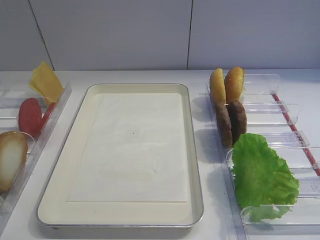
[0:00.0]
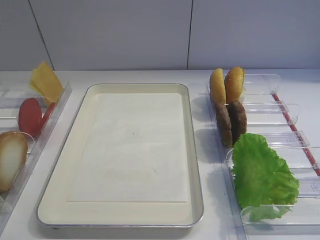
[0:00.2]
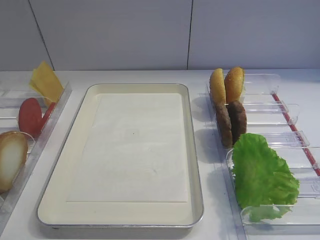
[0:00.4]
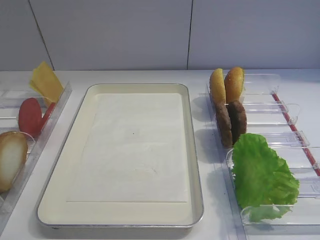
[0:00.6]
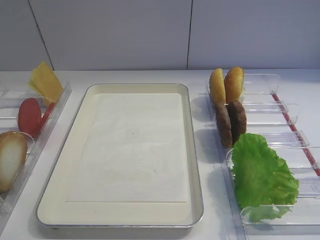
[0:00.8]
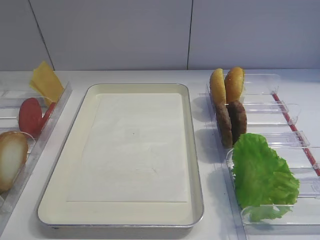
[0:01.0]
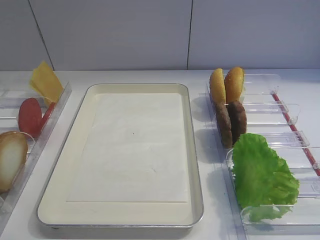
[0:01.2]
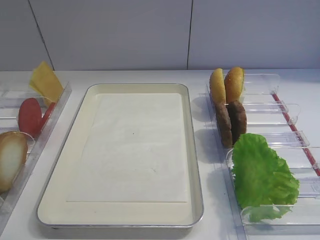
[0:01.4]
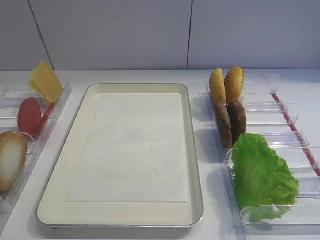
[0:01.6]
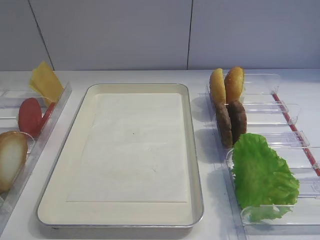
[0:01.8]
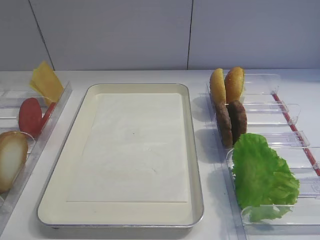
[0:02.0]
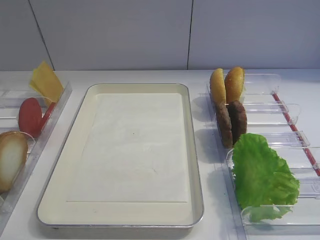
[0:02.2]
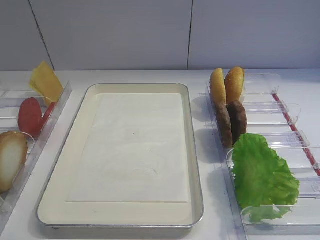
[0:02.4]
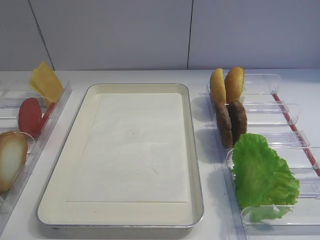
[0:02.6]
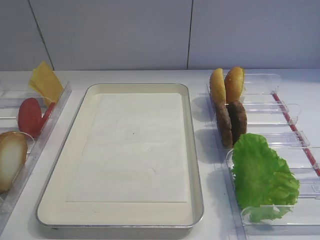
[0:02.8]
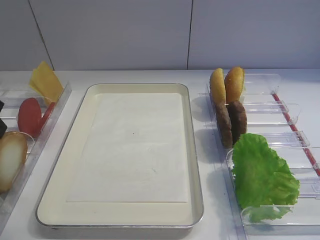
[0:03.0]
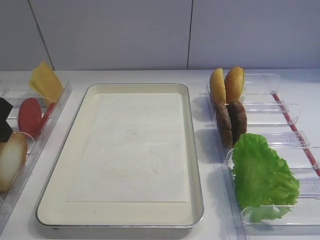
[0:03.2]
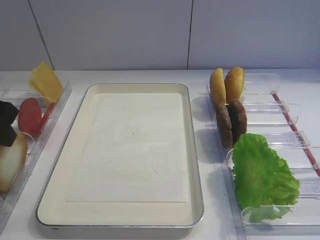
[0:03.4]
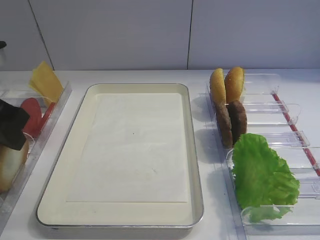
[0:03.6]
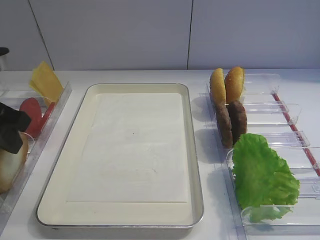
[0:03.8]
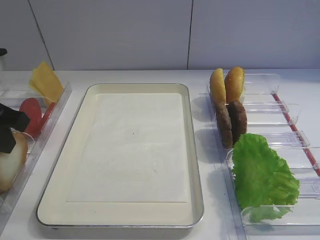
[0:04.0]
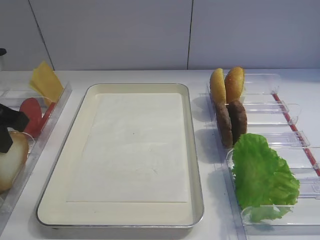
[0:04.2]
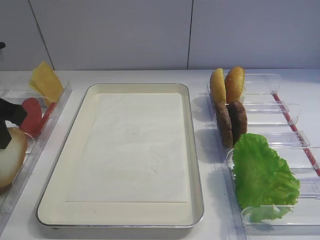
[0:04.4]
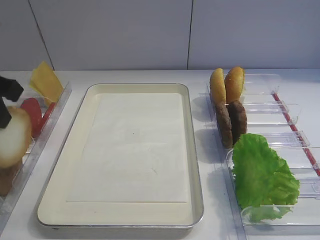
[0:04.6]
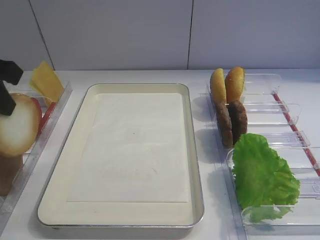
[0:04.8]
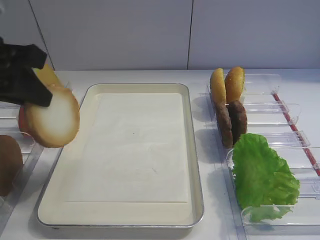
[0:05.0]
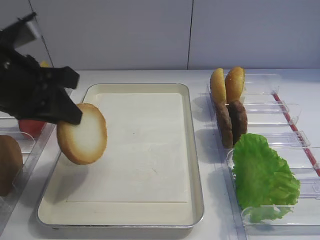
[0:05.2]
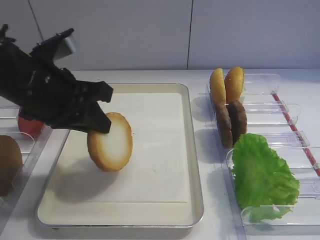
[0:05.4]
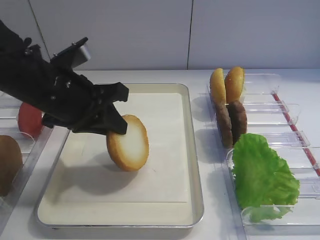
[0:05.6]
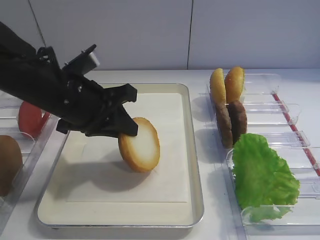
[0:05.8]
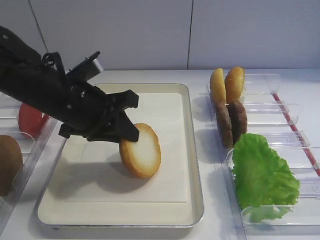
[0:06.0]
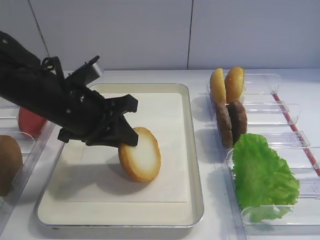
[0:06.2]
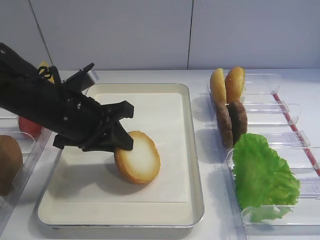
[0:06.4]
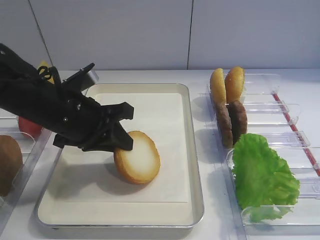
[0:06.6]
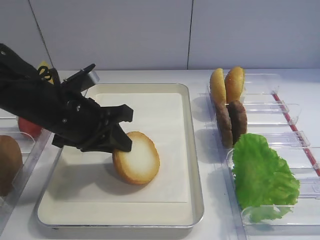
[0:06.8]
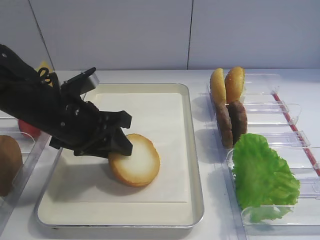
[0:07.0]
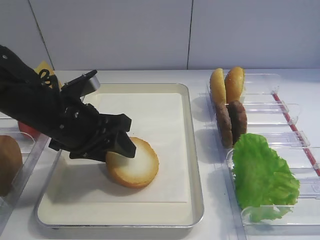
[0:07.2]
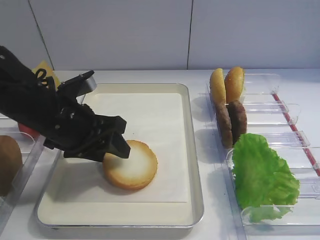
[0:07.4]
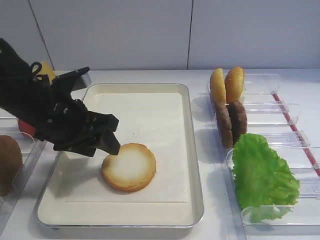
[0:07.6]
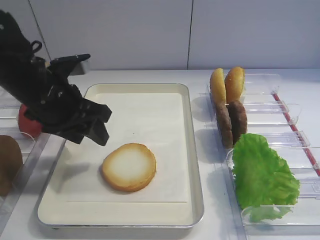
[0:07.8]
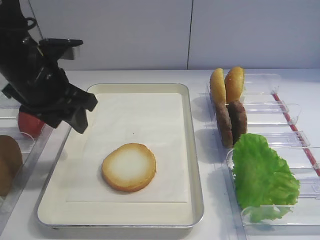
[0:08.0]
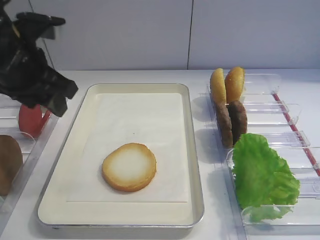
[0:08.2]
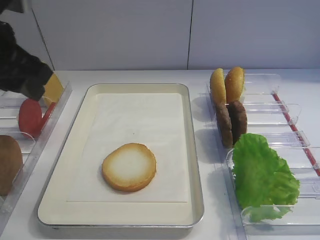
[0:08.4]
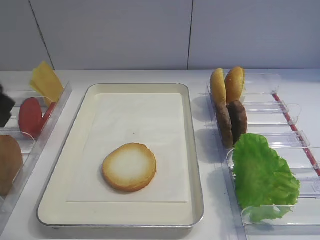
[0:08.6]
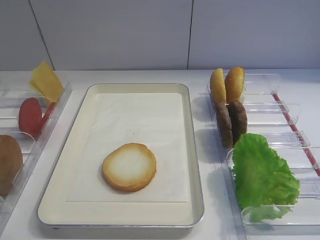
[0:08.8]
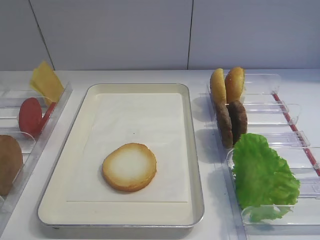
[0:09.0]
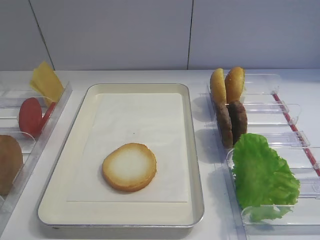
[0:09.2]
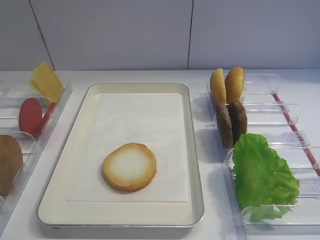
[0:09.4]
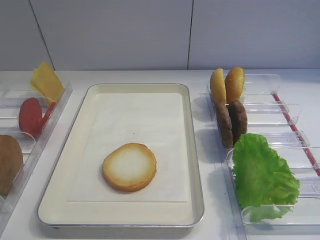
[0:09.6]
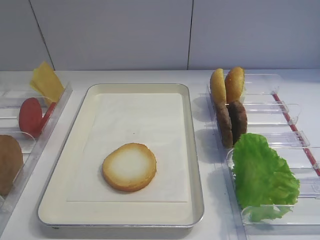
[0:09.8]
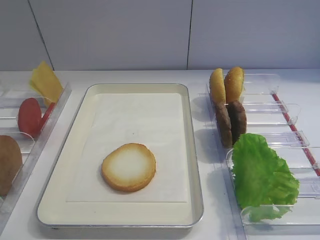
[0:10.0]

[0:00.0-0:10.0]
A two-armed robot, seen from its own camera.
Step, 0:00.0 to 0:04.8: Pick up the bread slice with the left gripper.
Step, 0:05.0 to 0:08.0: Place the bread slice on the tray with the left gripper.
0:02.8 to 0:04.2: The left gripper closes its fingers.
0:04.2 to 0:05.8: The left gripper moves to the right and downward, approximately 15 cm.
0:05.8 to 0:07.2: The left gripper opens.
0:07.2 to 0:08.6: The left gripper travels backward, upward and to the left by roughly 25 cm.

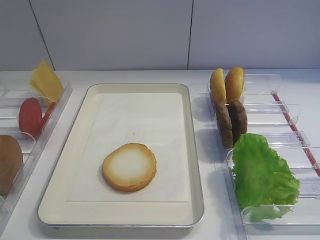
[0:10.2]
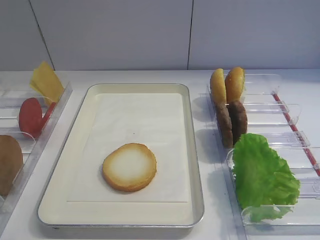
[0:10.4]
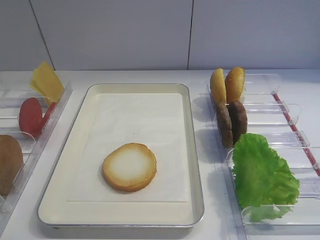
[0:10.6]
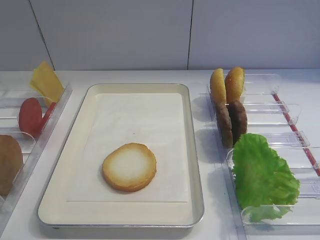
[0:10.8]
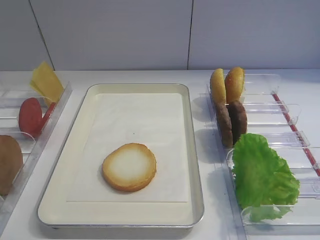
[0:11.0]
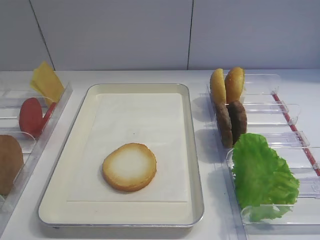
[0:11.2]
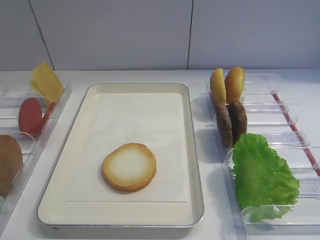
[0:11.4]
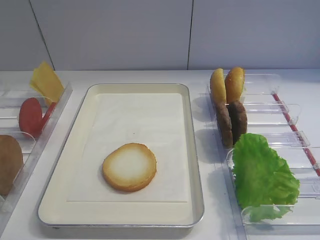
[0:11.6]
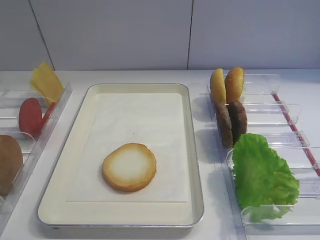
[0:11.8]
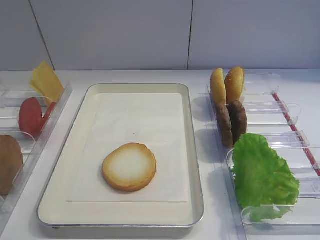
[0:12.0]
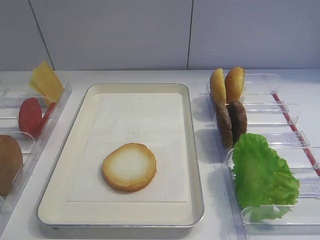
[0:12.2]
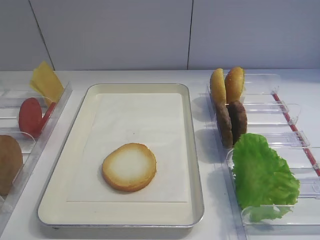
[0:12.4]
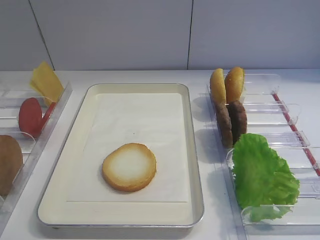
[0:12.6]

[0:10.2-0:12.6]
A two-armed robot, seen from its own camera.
0:11.4 to 0:12.6: The two grippers keep their place.

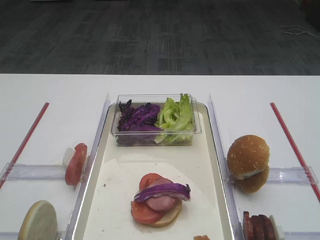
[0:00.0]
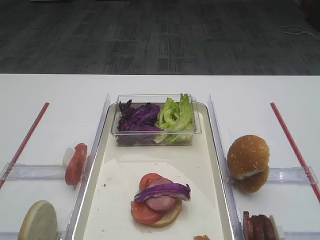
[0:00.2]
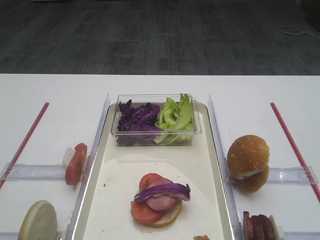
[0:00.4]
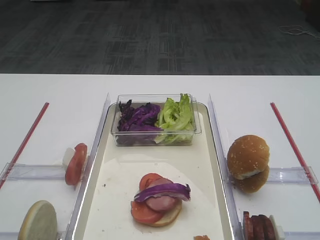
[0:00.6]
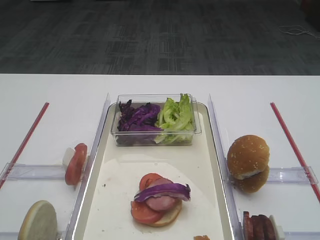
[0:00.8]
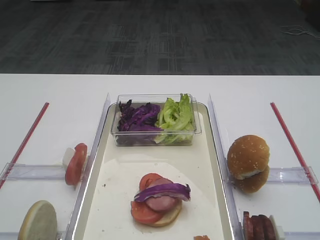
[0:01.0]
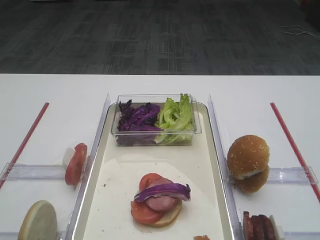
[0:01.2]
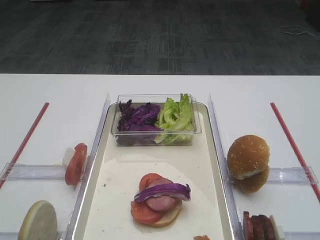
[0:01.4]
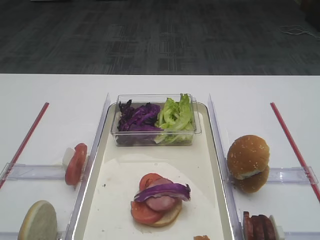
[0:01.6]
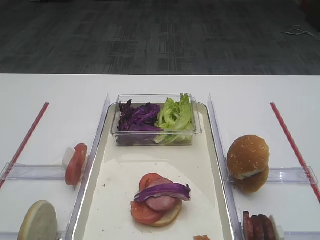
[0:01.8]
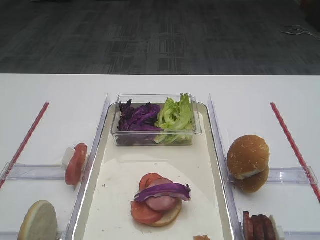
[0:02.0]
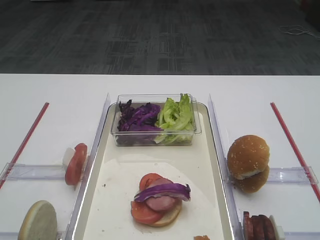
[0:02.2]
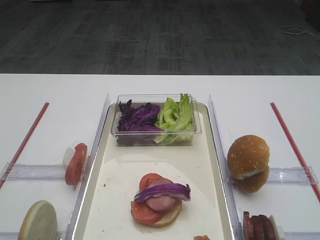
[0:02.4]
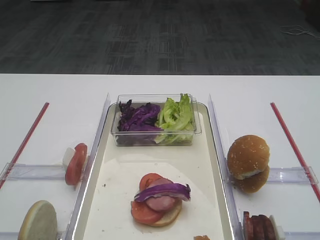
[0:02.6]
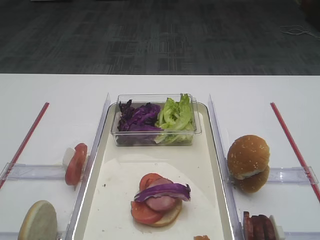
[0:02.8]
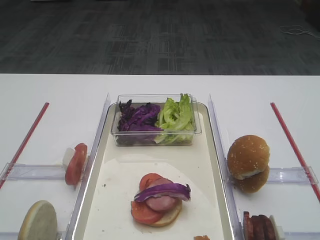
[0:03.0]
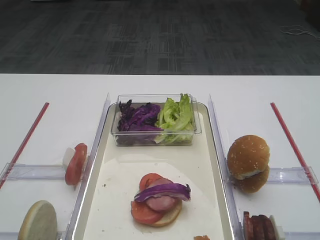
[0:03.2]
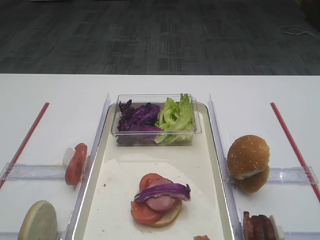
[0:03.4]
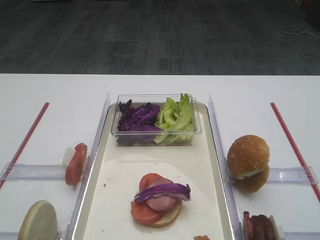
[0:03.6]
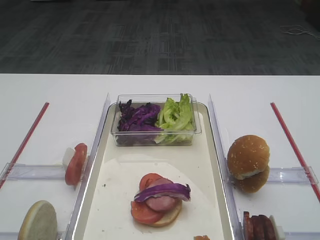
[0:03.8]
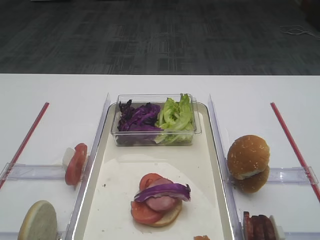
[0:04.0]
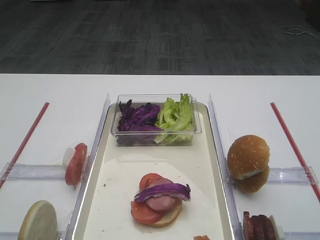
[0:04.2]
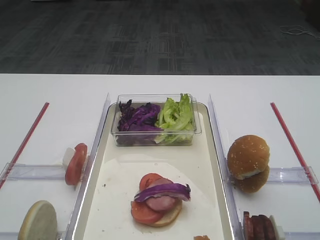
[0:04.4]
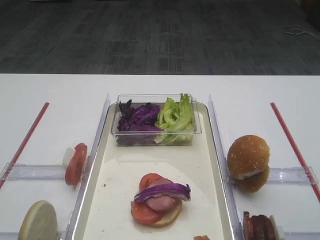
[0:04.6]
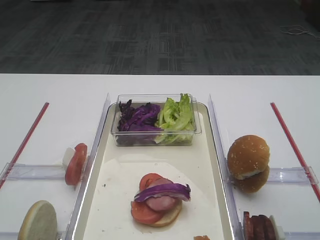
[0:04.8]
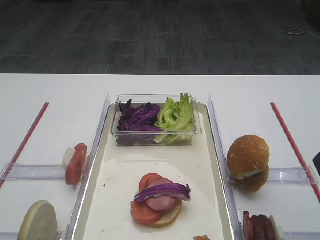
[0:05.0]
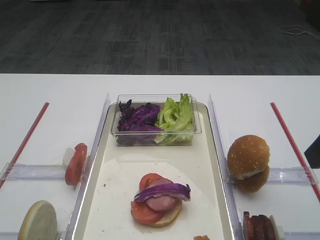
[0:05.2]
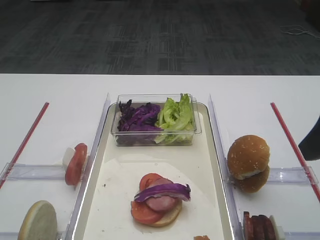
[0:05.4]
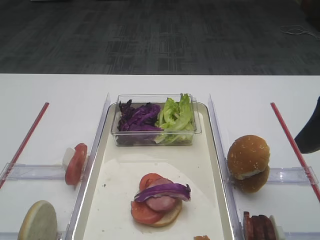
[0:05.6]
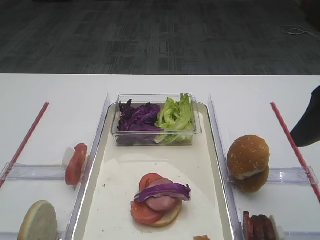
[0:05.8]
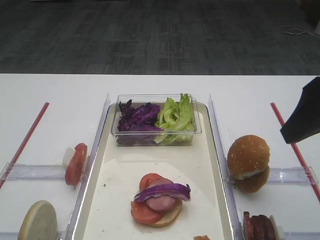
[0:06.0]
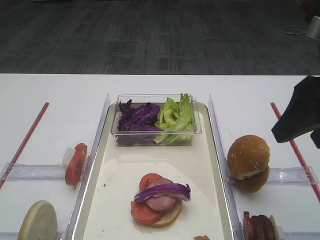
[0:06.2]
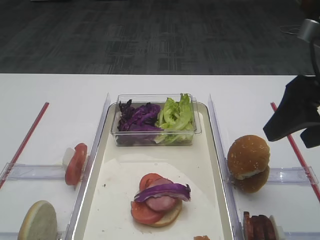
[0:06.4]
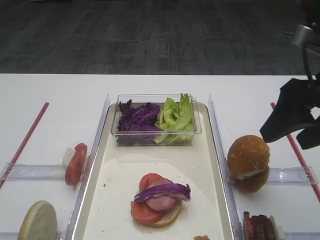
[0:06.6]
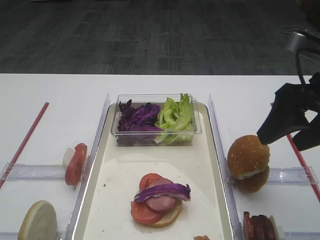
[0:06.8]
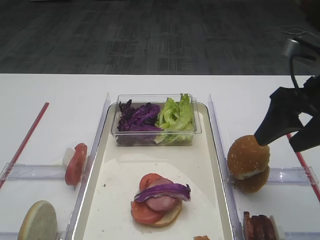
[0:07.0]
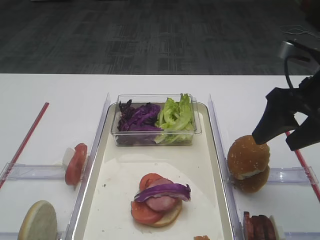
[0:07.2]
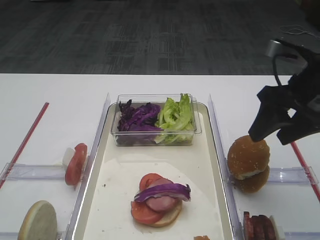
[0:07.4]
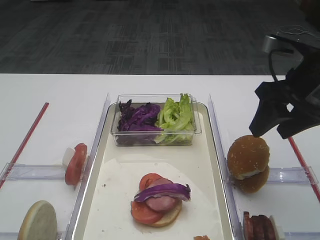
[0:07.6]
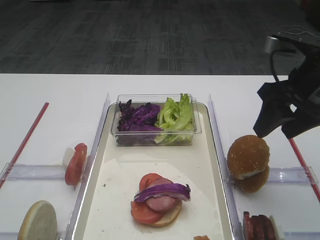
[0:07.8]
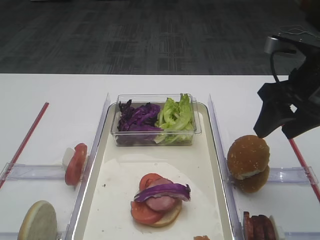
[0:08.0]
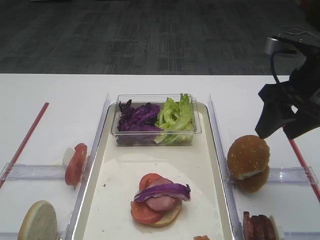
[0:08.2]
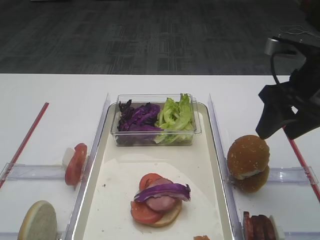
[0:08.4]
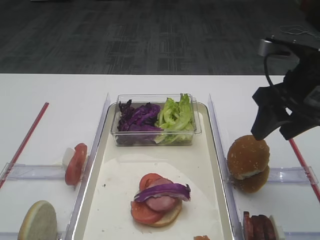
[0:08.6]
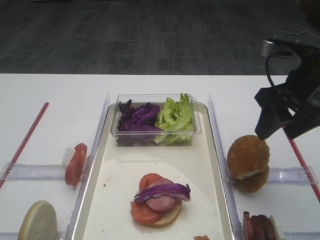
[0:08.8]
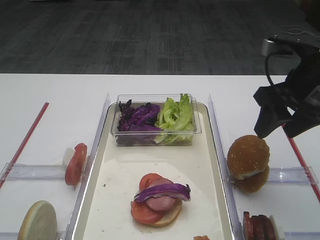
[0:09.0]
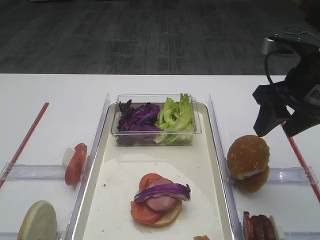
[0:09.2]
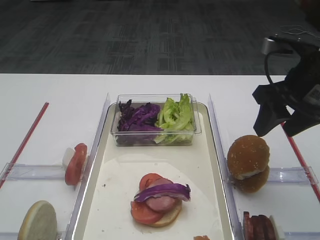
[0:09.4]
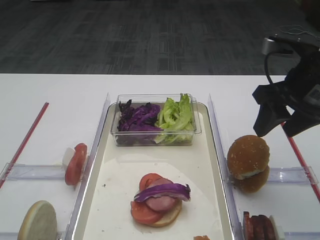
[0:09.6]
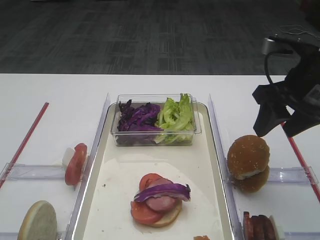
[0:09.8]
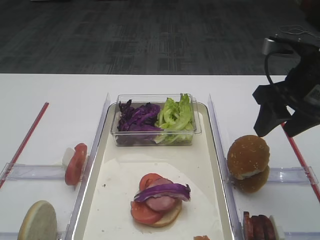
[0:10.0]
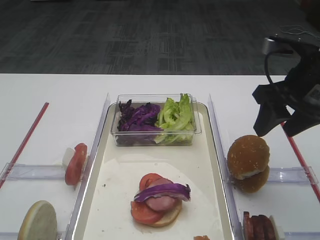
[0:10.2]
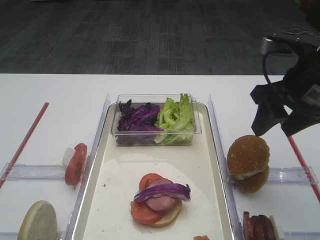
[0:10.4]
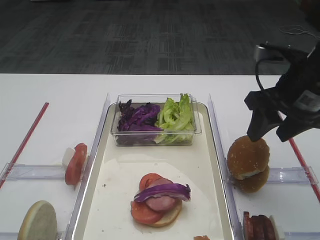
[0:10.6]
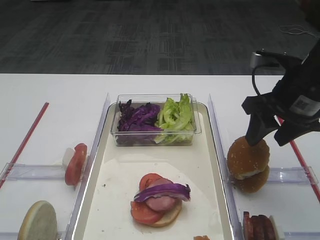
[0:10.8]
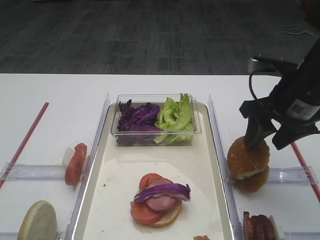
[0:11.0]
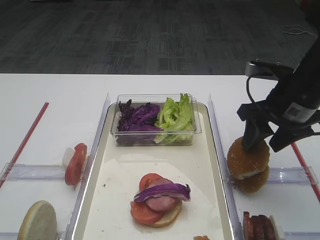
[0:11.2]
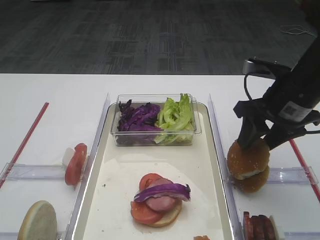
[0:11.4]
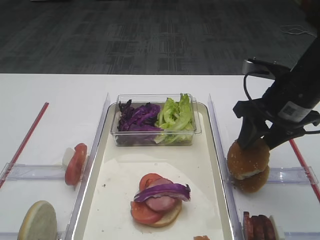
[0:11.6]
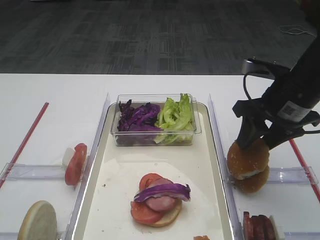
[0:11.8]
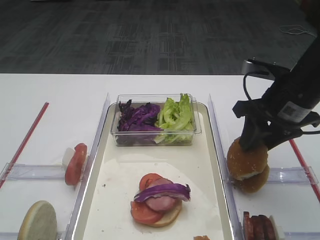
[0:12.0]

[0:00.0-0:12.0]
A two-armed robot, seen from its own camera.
0:04.4 to 0:06.0: The right gripper moves forward, some 10 cm.
0:06.0 to 0:07.6: The right gripper heads forward, covering some 10 cm.
0:07.6 to 0:09.0: There are only small adjustments of the grippers.
0:09.0 to 0:10.4: Both grippers stay about where they are.
0:10.4 to 0:12.0: There are only small adjustments of the grippers.
